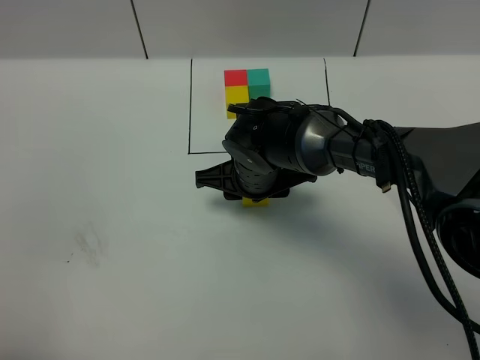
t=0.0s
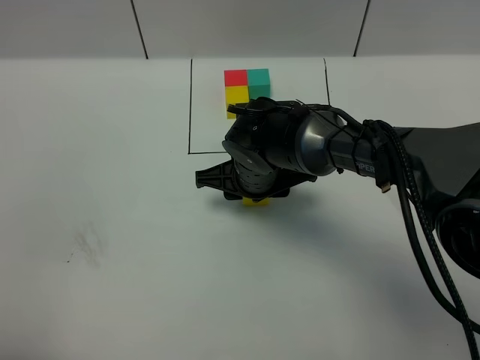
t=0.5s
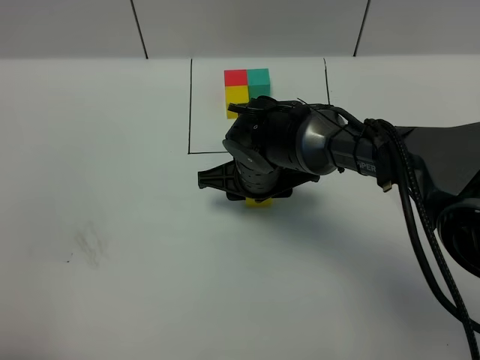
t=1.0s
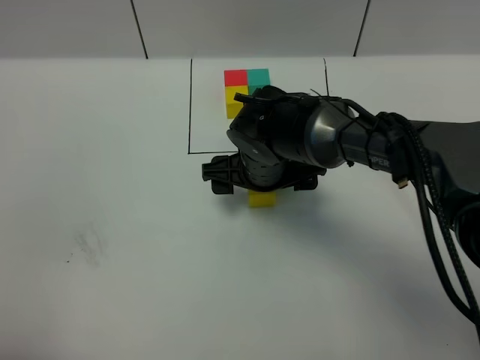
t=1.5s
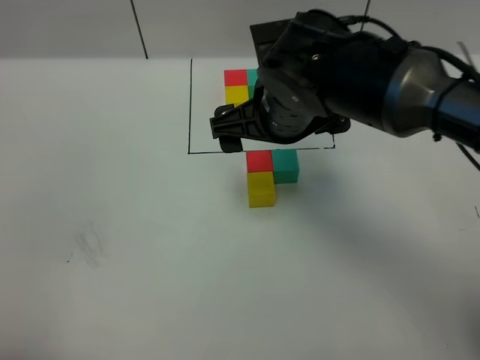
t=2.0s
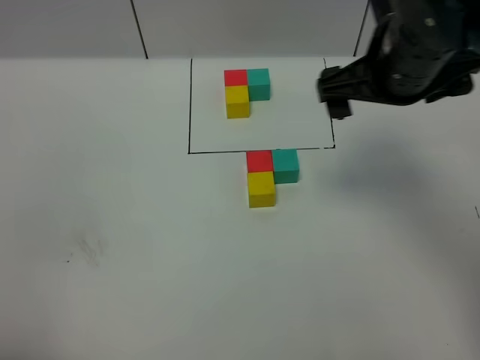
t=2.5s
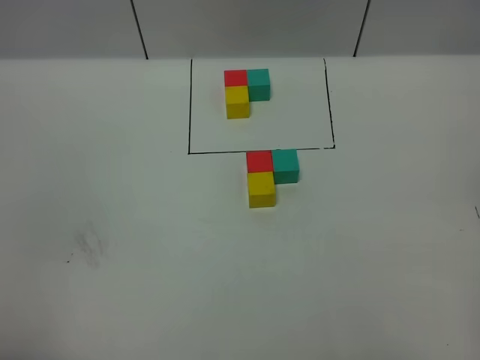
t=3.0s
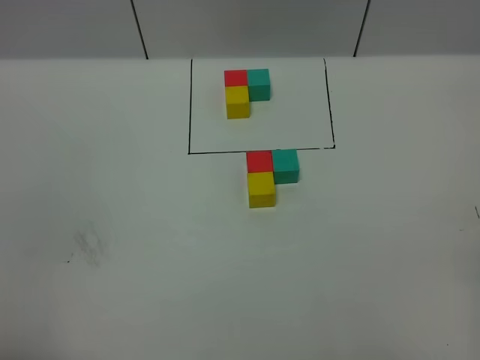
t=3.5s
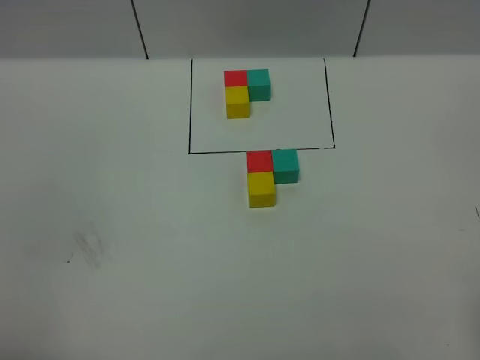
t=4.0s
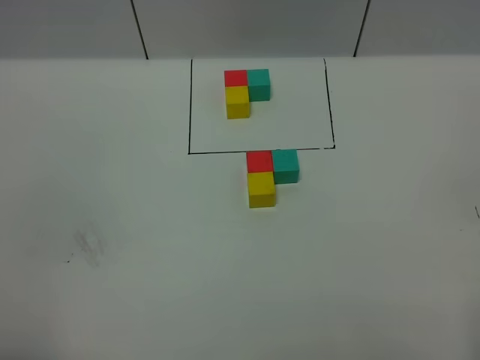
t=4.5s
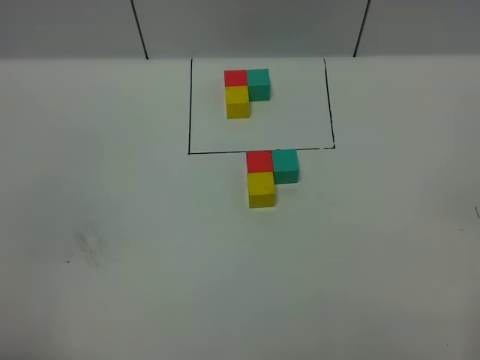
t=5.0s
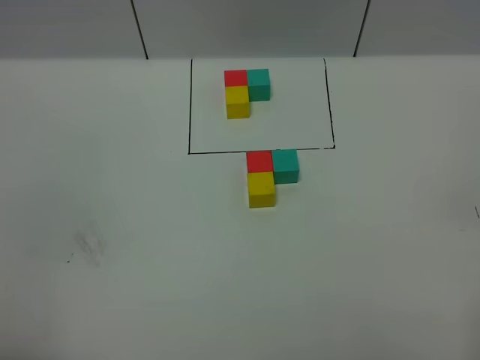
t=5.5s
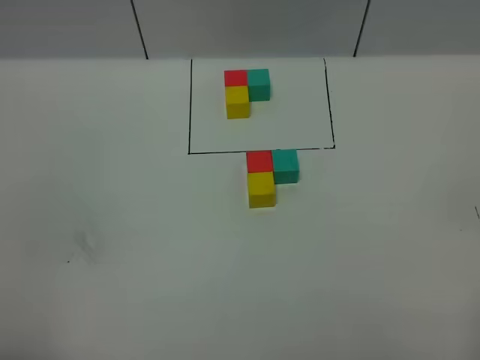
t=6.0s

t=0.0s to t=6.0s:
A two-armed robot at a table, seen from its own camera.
Task of the whole recording: According to the building block template in front, assemble the scattered blocks together.
t=0.0s to t=2.0s: The right gripper is displaced upward by some 15 cm, and opens up.
t=2.0s to t=4.0s: The right gripper goes roughly 40 cm backward and to the right.
